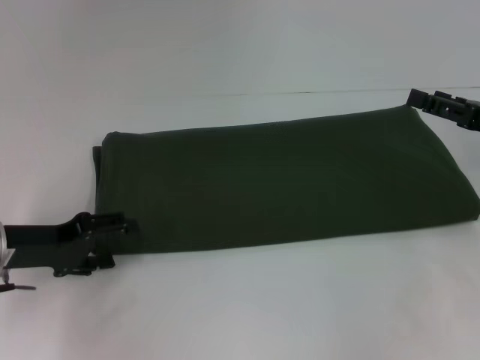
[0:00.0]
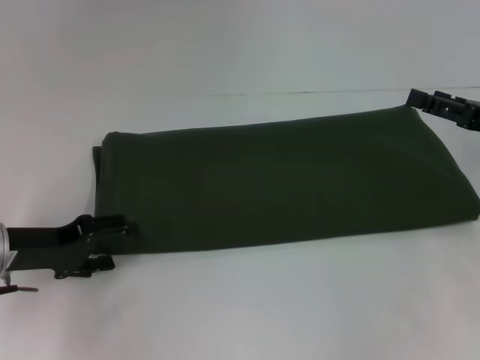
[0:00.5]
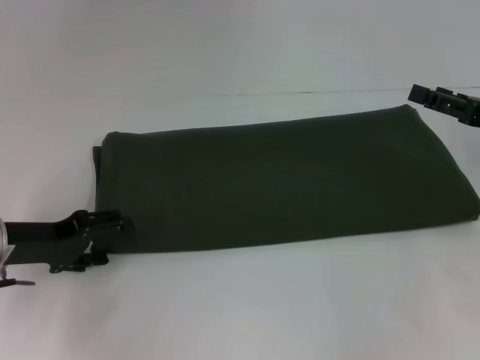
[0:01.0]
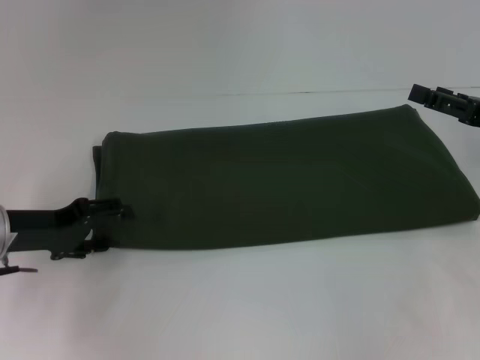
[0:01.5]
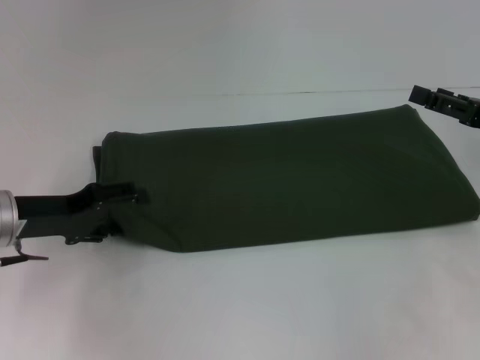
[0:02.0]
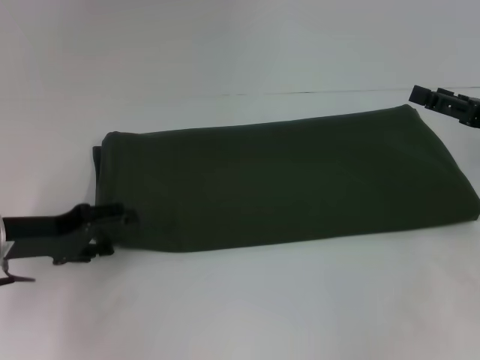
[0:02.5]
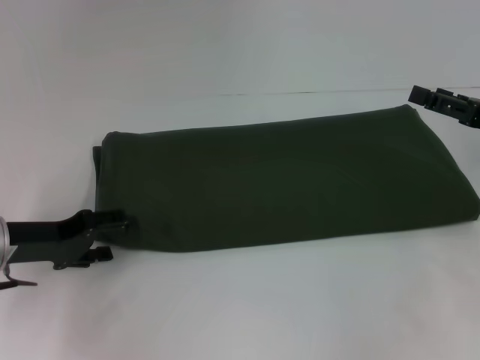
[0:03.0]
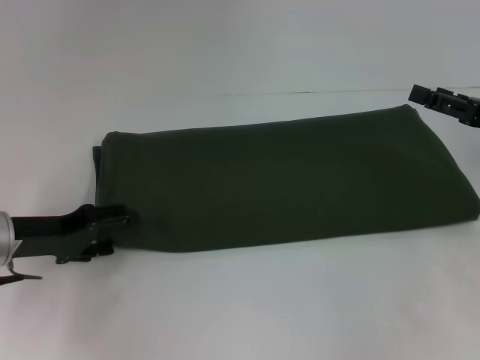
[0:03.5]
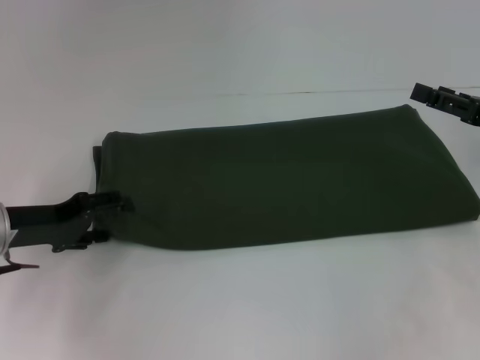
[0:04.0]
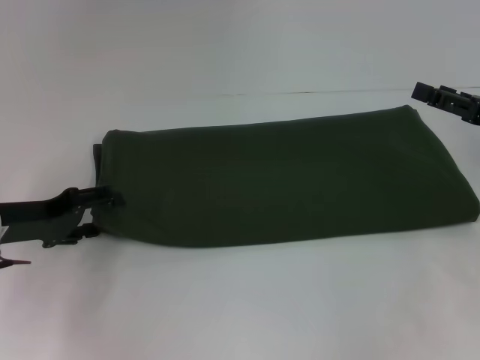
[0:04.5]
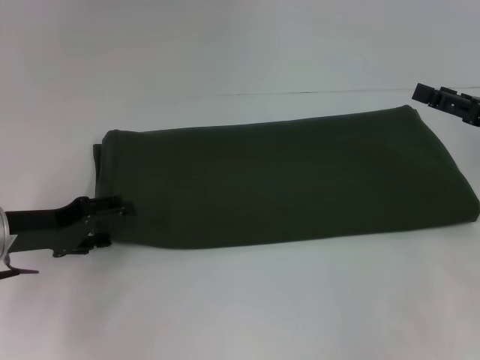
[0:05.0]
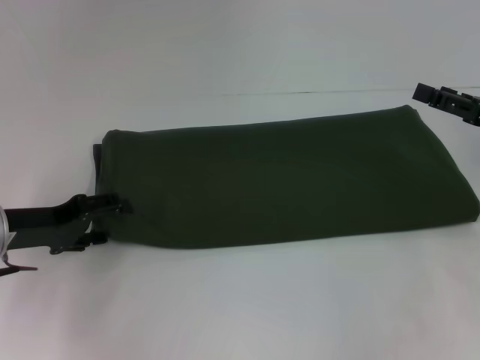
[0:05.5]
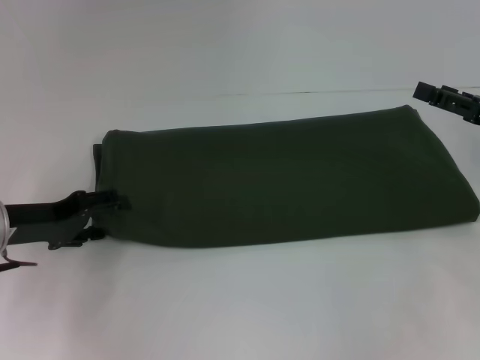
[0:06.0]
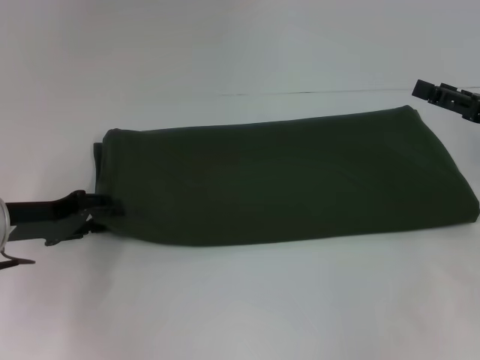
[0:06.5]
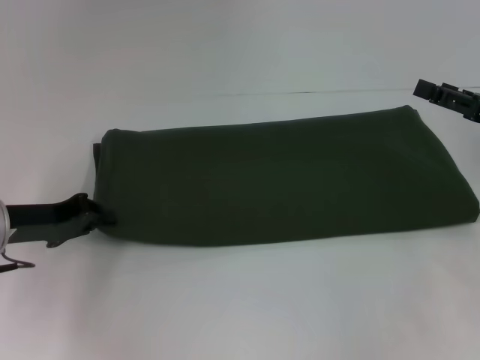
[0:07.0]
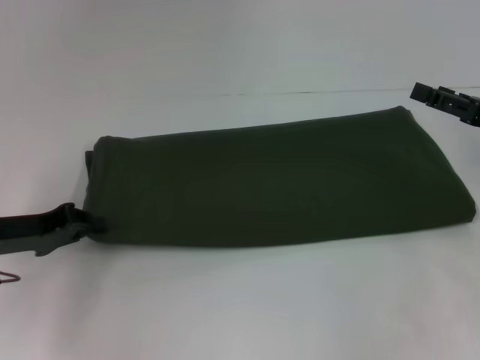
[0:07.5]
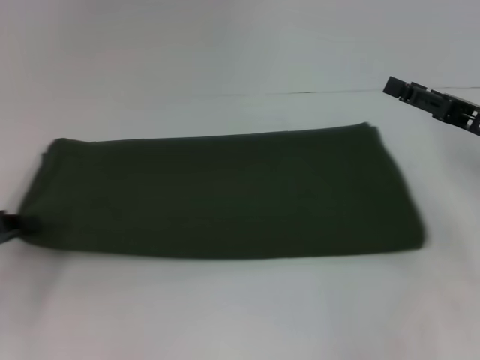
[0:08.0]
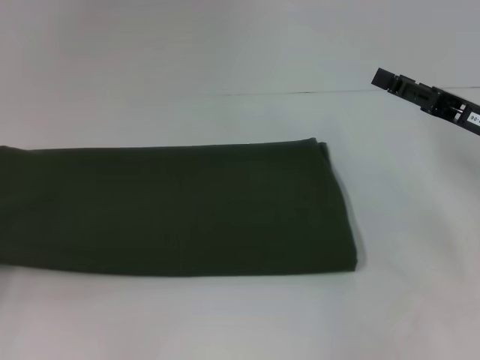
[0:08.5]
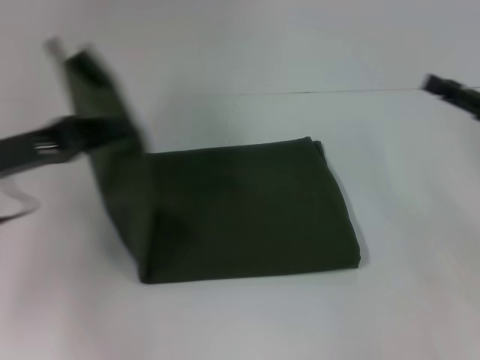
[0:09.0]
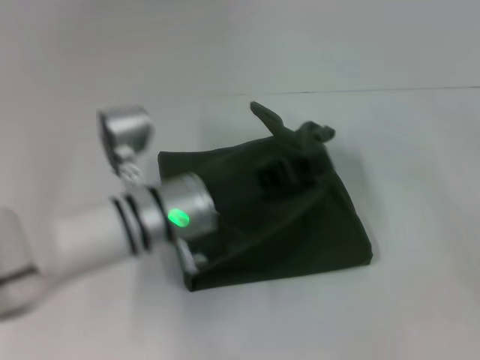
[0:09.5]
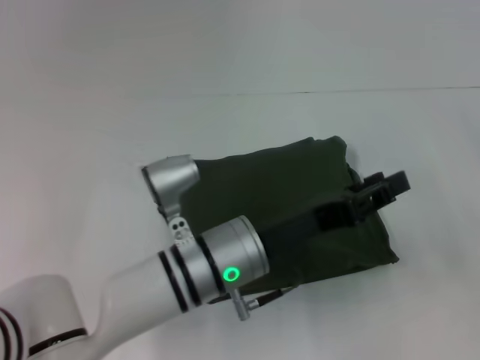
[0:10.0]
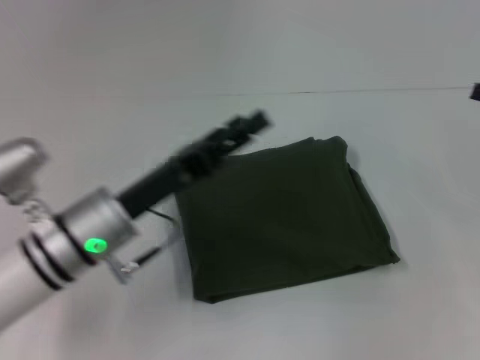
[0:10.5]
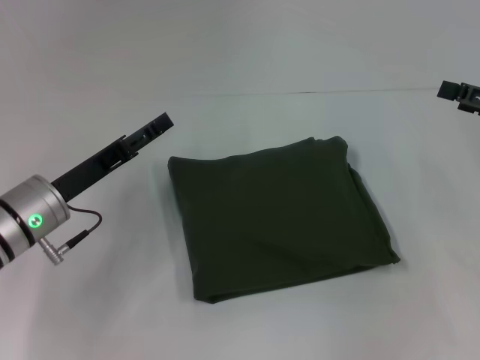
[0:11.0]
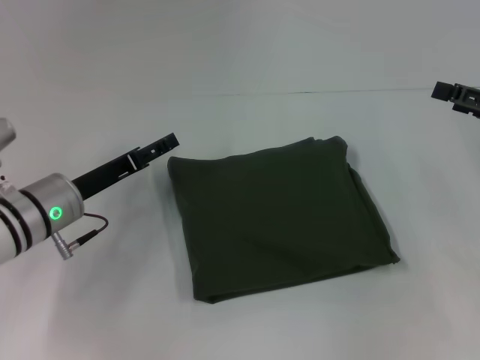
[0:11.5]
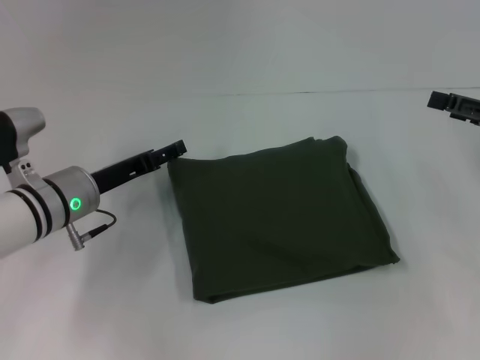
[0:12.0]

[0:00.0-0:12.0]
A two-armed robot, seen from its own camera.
Step, 0:00.0 to 0:09.5: Fold the clothes with your left hand.
0:00.0 to 0:04.0: There are only small adjustments of the grippers.
0:04.0 to 0:06.0: The two grippers keep their place.
0:06.0 to 0:08.0: The left gripper travels to the left by roughly 5 cm, and closes its fingers.
0:08.0 to 0:10.0: The left gripper travels to the right by approximately 30 cm. Meanwhile the right gripper travels to the right and backward by approximately 10 cm.
0:10.0 to 0:12.0: The right gripper moves to the left and forward, approximately 10 cm, while the left gripper is displaced to the left and forward by approximately 20 cm, and opens its fingers.

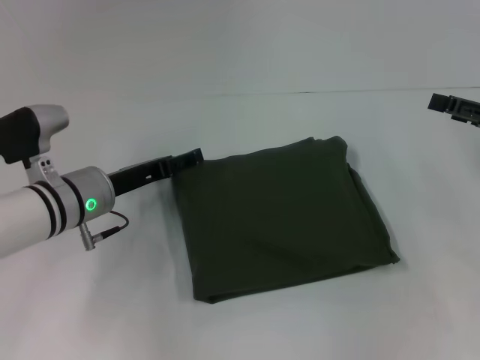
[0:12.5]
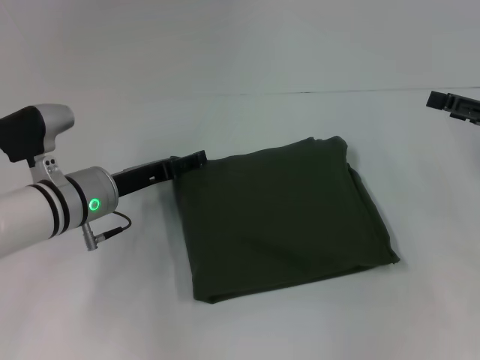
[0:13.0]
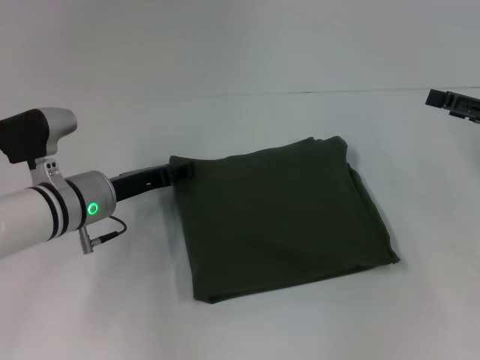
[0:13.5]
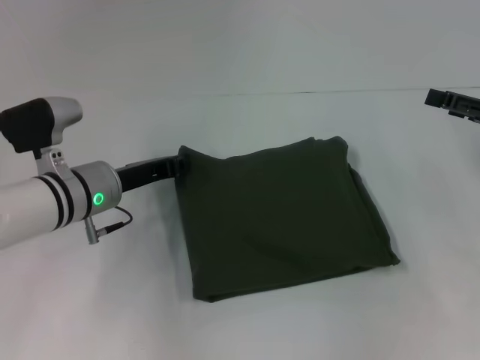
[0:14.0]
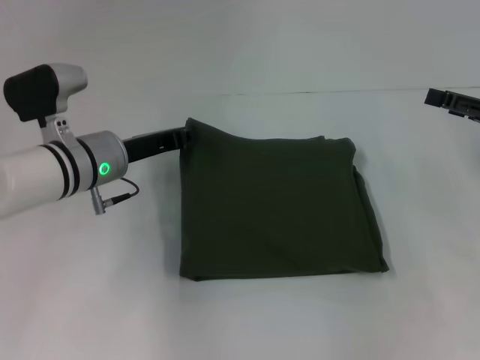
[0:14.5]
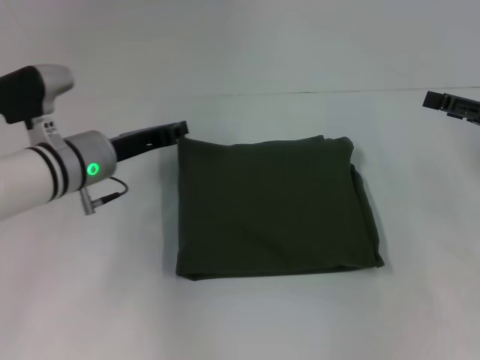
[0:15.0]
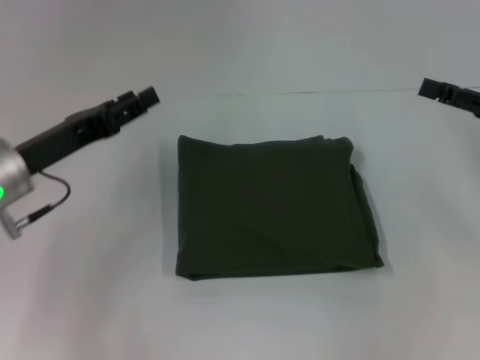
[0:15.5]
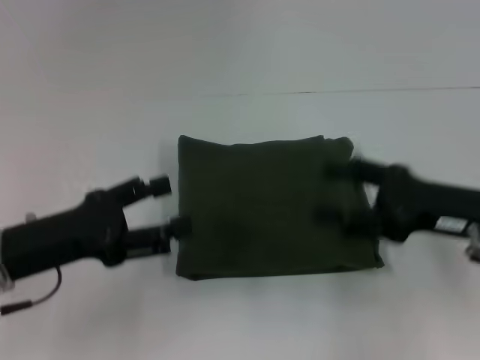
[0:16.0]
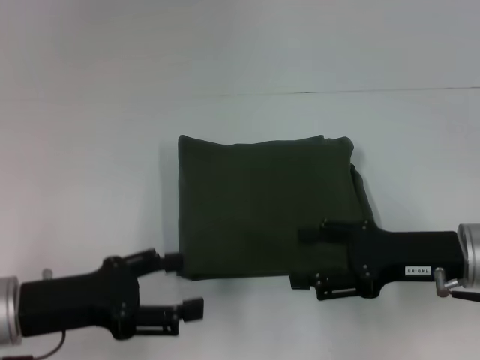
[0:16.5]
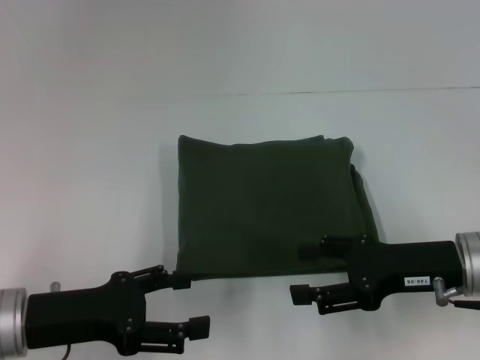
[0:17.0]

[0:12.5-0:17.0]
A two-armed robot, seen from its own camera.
0:12.5 to 0:14.5: The left gripper closes its fingers.
0:14.5 to 0:17.0: The left gripper moves backward and to the left, approximately 20 cm, and opens. Meanwhile the right gripper heads to the left and backward, covering approximately 15 cm.
